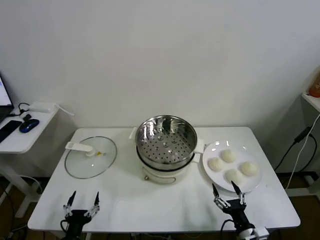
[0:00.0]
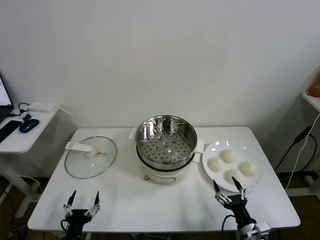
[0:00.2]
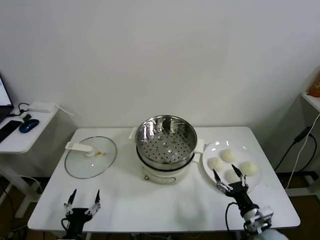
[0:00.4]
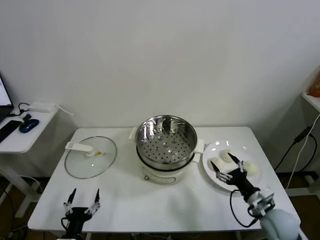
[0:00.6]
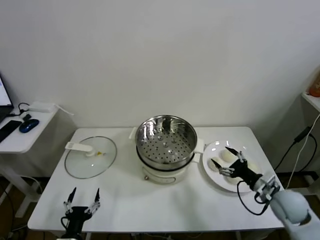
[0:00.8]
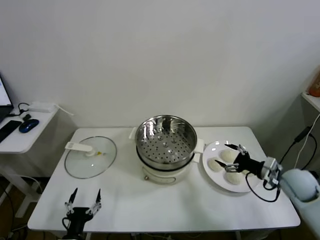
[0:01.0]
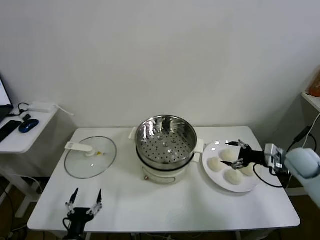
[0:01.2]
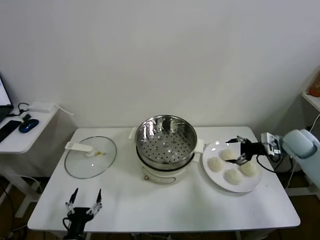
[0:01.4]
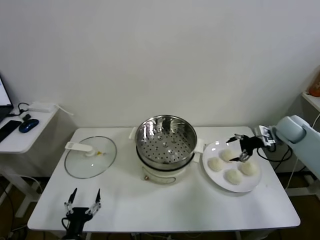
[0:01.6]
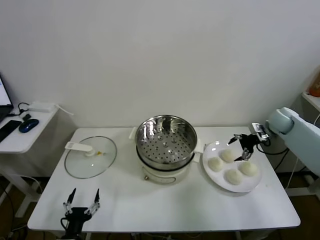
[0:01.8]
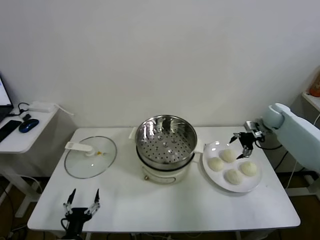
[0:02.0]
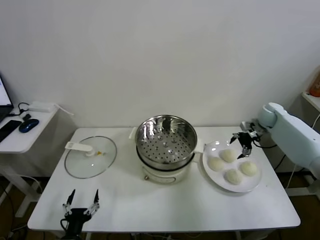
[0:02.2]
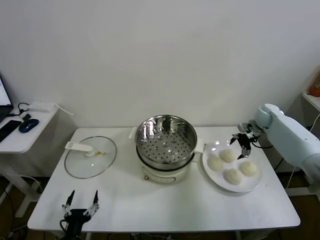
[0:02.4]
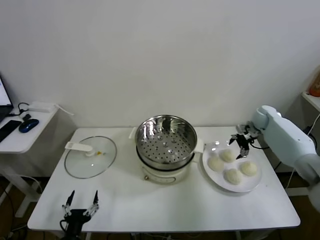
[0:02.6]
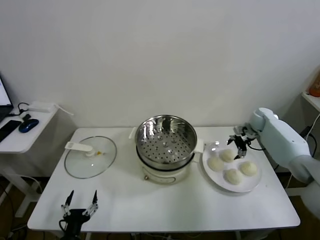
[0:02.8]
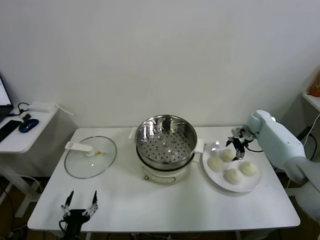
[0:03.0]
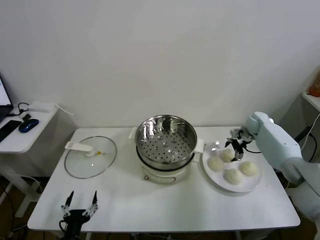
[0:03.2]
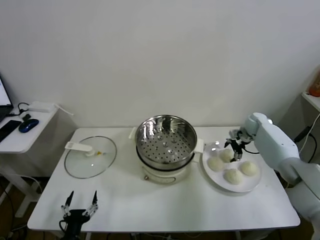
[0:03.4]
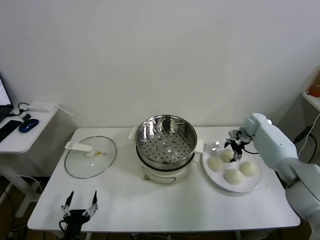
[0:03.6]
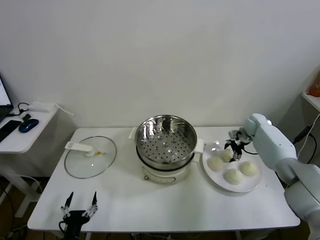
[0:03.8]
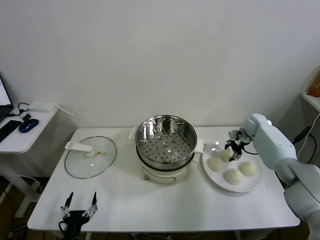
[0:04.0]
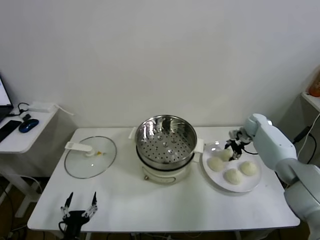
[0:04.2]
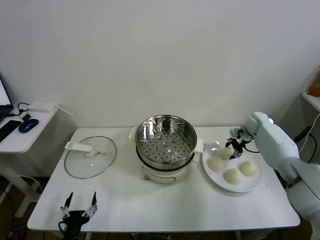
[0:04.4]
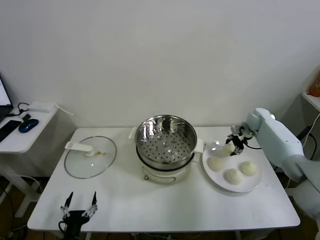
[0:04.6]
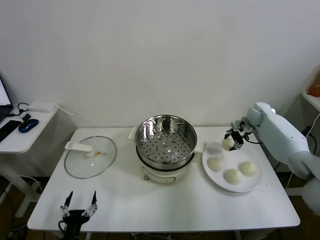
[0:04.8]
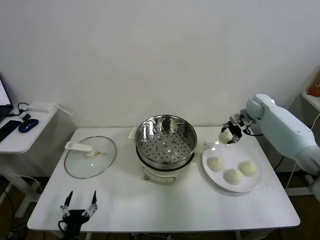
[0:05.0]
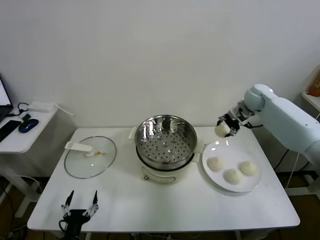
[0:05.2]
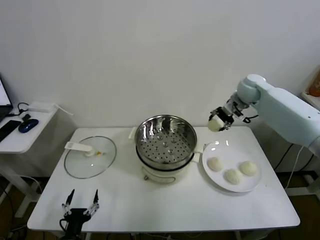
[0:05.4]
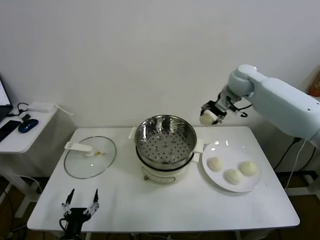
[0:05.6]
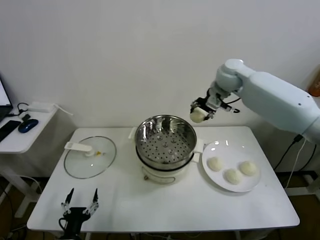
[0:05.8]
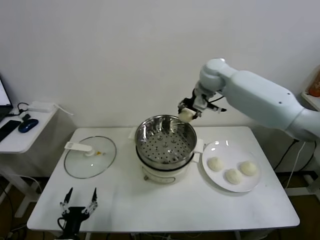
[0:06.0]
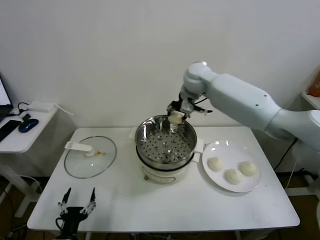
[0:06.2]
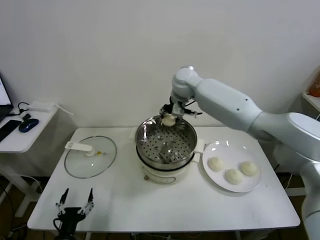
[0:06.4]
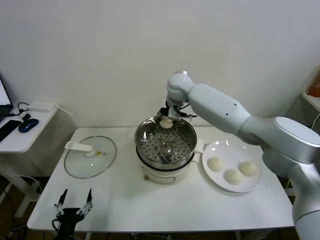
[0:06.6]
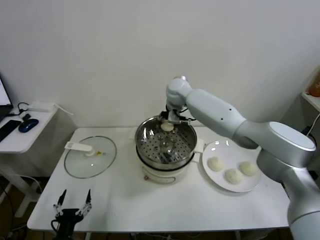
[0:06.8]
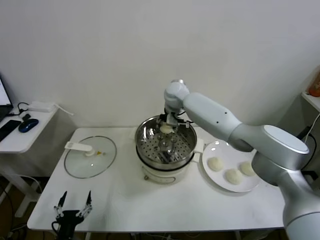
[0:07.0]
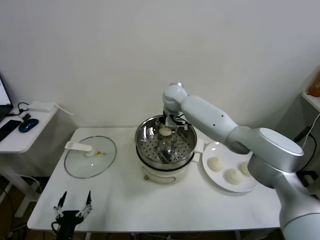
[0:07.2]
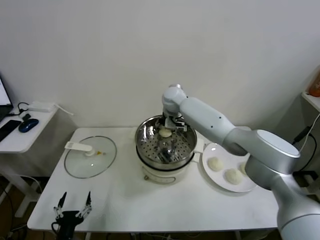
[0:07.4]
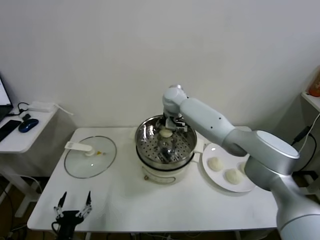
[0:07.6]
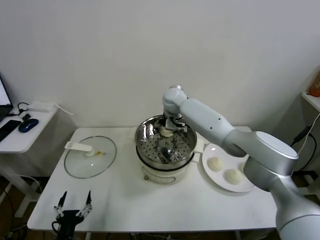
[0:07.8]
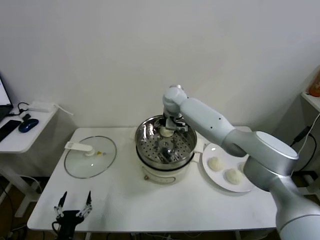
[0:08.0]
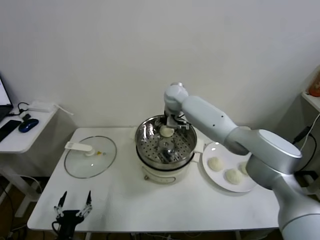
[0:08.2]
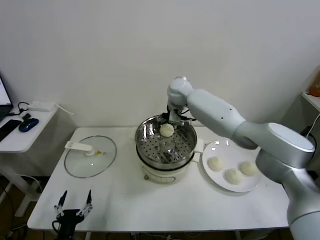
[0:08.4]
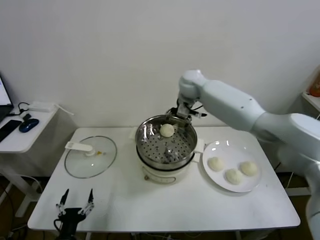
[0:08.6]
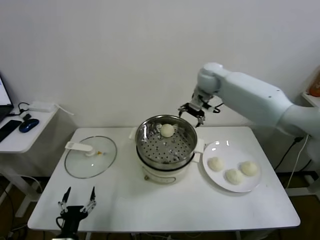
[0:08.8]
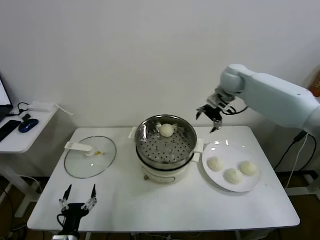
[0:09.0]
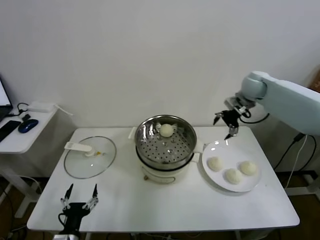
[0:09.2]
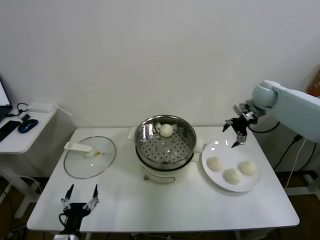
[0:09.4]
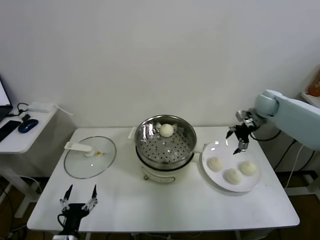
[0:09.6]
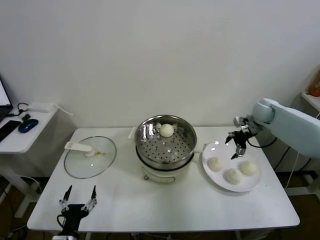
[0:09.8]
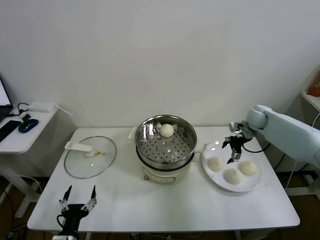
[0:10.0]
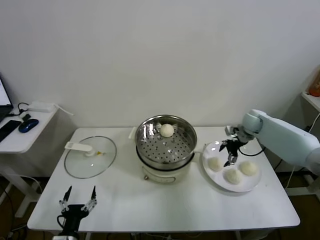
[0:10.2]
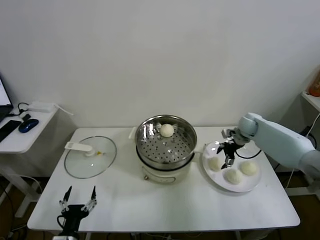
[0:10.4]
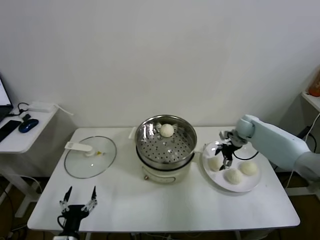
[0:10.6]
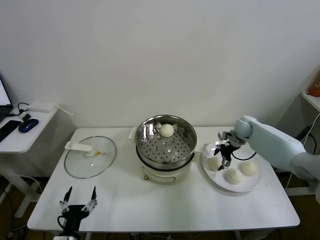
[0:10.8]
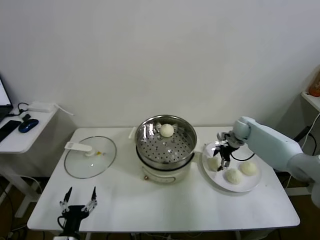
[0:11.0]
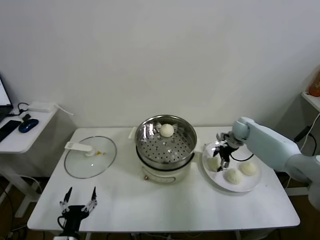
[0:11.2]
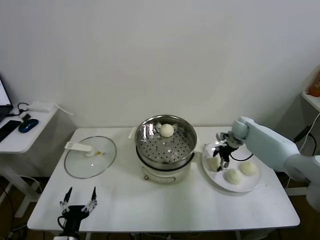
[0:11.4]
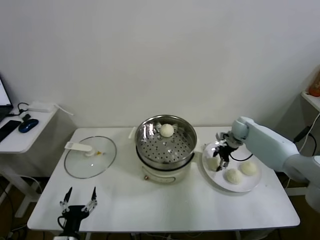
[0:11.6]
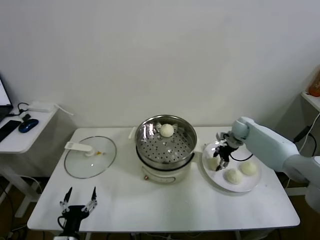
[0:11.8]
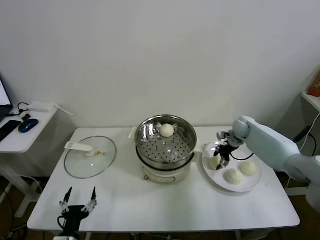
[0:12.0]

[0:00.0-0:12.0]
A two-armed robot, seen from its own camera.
Task of the whole recording: take steamed baozi put them in steamer.
Step, 0.0 to 4.0 s: Grasp the baozi in the plate with right gripper.
Step, 4.2 to 8.2 s: Place the baozi on the steamer with right gripper.
Step, 8.4 to 11.6 s: Grasp the baozi in the plate with right gripper.
1.6 to 3.0 s: The right gripper travels forward and downward by roughly 10 cm.
3.0 to 4.4 s: The right gripper closes.
4.4 to 6.0 s: The right gripper travels to the left and upward by approximately 35 cm.
6.0 to 7.6 s: The right gripper moves downward and to the left, about 15 cm.
7.6 to 9.0 s: The right gripper moves to the right, roughly 25 cm, and opens up.
9.0 to 10.4 s: The right gripper is displaced downward by roughly 20 cm.
10.4 to 12.0 s: The right gripper closes.

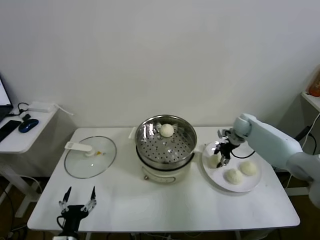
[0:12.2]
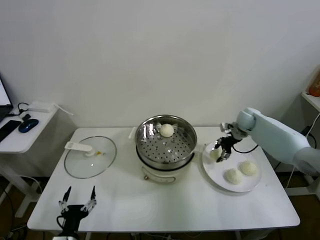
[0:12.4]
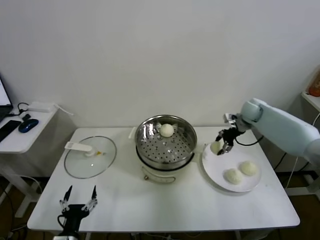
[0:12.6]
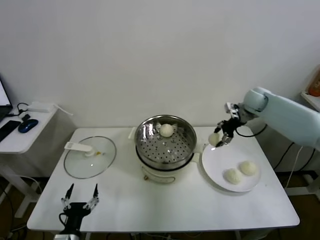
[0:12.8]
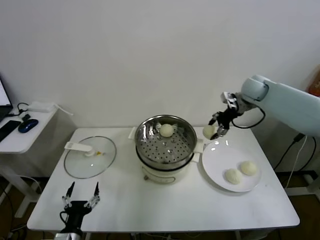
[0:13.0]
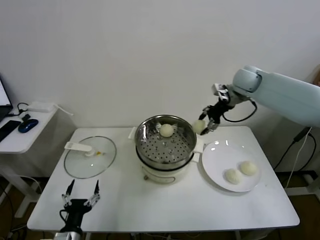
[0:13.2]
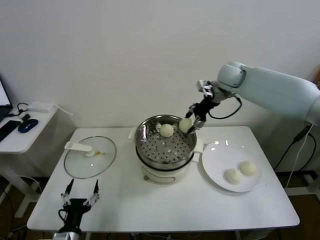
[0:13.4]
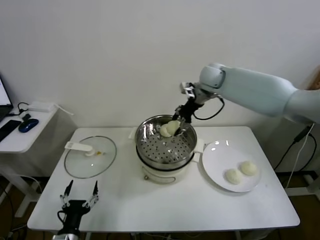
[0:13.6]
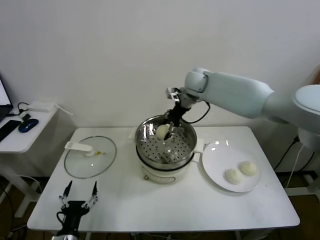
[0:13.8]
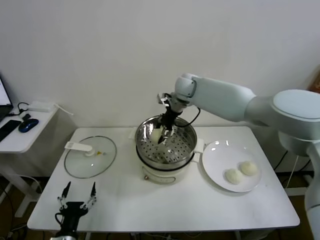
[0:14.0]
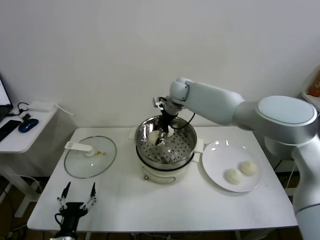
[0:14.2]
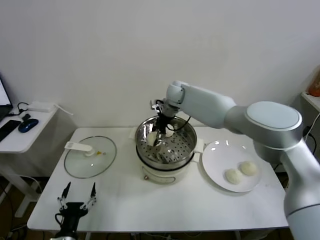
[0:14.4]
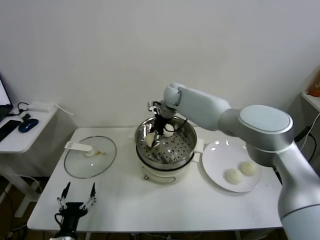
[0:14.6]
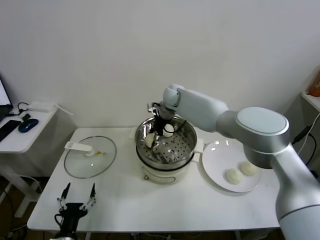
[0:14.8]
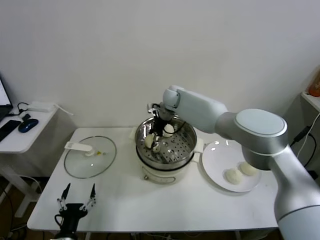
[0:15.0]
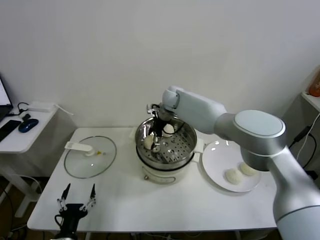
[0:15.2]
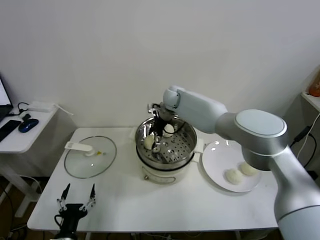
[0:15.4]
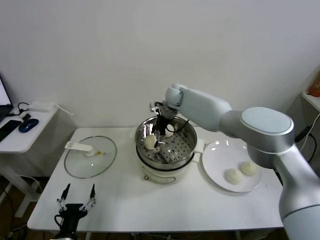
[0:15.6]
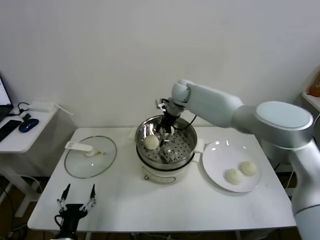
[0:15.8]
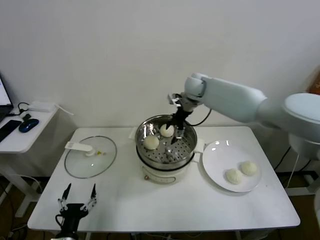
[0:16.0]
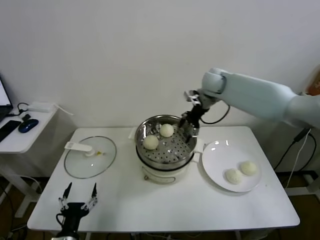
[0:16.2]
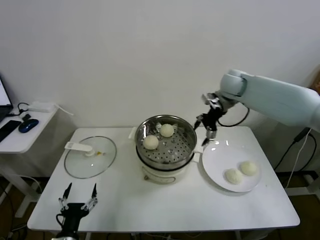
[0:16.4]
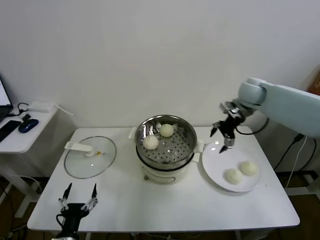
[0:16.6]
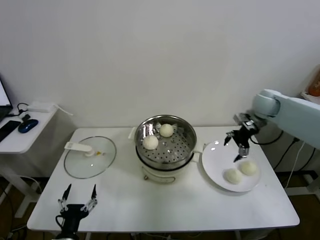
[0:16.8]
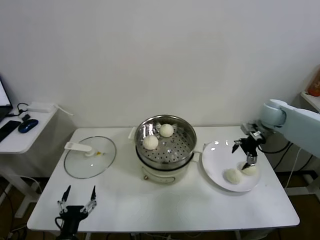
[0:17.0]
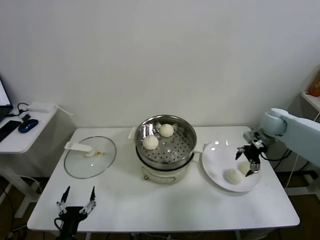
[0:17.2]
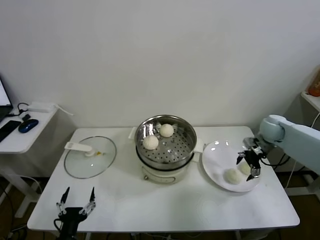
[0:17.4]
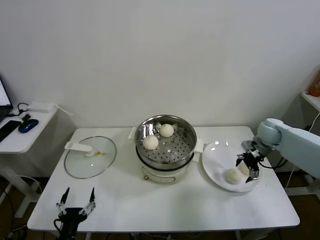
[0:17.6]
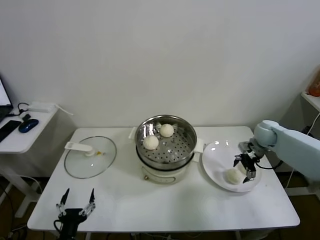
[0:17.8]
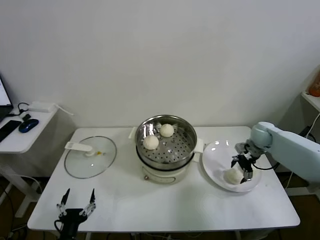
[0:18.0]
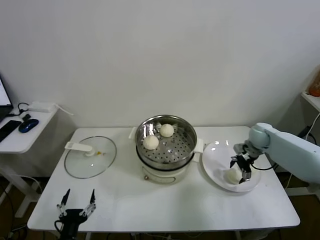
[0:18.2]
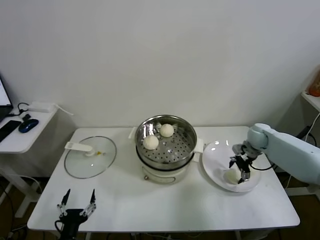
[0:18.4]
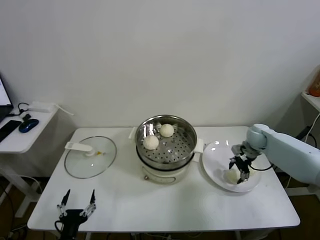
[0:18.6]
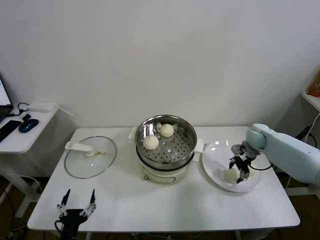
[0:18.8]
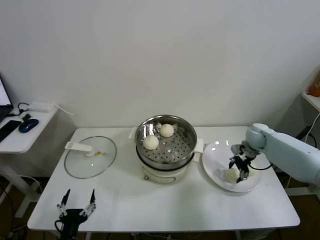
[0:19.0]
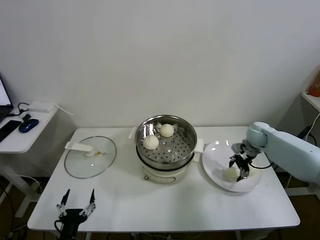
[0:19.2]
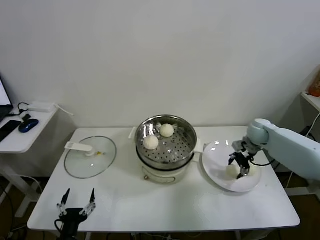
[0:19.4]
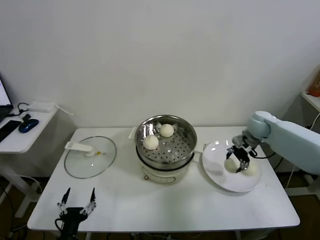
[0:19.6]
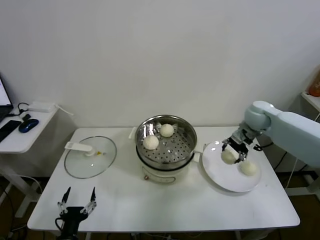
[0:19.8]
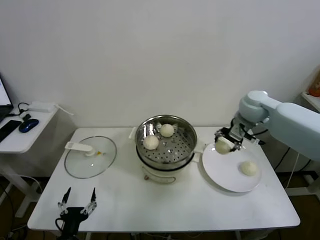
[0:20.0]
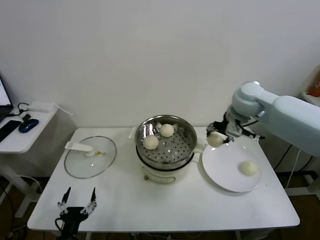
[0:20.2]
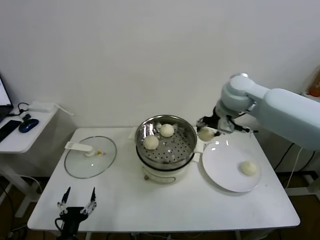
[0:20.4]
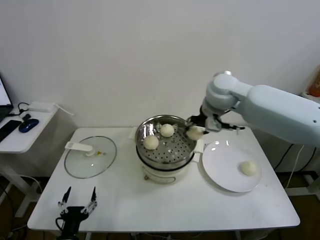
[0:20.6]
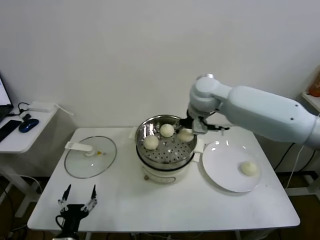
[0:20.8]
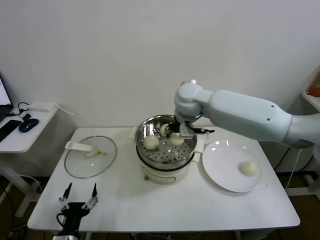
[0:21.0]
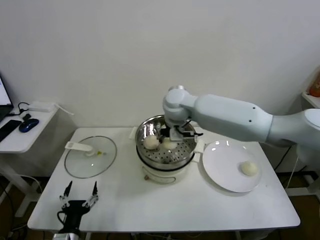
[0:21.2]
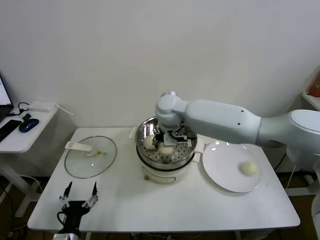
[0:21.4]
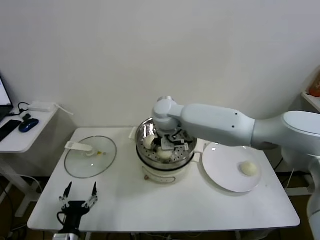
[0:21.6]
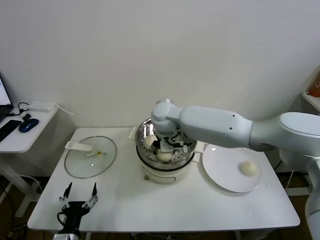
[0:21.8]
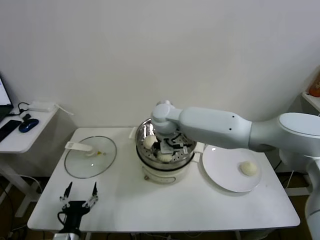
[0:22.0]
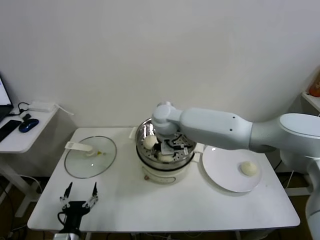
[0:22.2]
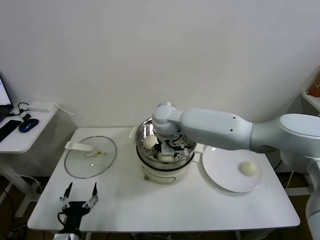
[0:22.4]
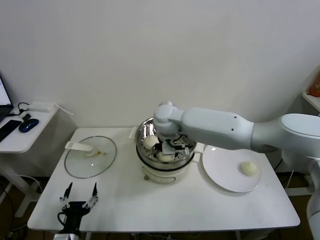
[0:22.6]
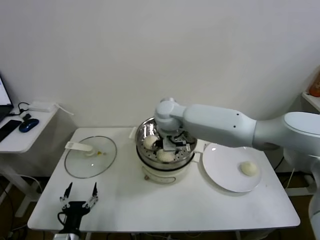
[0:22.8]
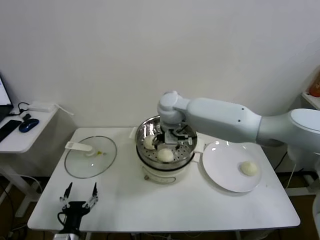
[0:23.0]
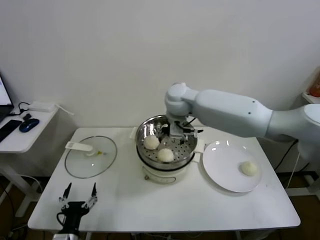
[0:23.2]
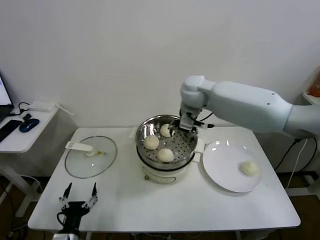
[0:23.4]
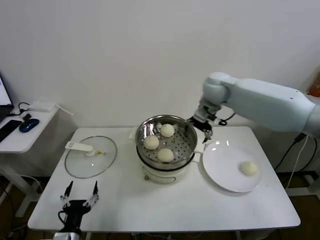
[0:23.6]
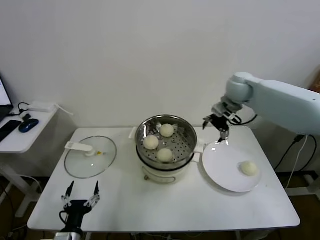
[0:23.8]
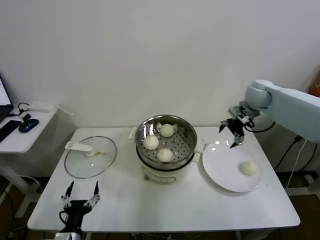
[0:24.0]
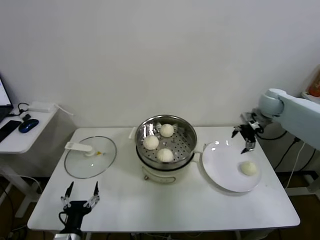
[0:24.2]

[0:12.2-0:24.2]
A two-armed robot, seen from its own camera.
Task of the whole recording: take steamed baozi put them in steamer.
Step, 12.2 to 15.4 s: Place the baozi on the steamer with right gripper.
Step, 15.6 to 18.6 s: Grasp the baozi in the plate with right gripper.
Step, 19.0 to 22.6 s: Place the baozi on the steamer with right gripper.
12.2 to 13.8 s: The right gripper shifts roughly 30 cm to the left and upward.
13.8 to 15.2 s: The right gripper shifts approximately 10 cm downward and to the left, and opens up.
15.2 to 16.6 s: The right gripper shifts some 30 cm to the right.
16.6 to 18.2 s: The right gripper moves downward and to the right, some 20 cm.
18.2 to 19.8 s: The right gripper heads upward and to the left, covering approximately 15 cm, and closes its fingers.
19.8 to 21.2 s: The right gripper goes about 30 cm to the left.
21.2 to 22.6 s: The right gripper shifts about 5 cm downward, and opens.
22.6 to 24.2 s: The right gripper moves to the right, approximately 40 cm.
